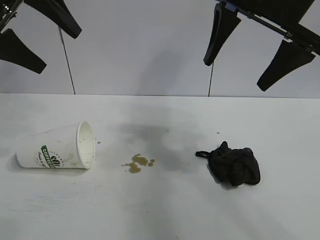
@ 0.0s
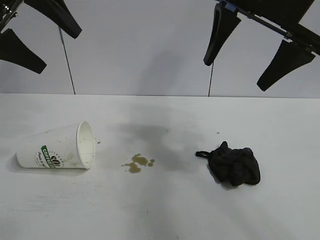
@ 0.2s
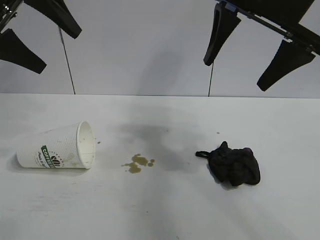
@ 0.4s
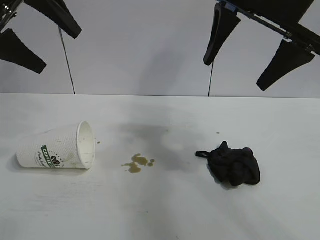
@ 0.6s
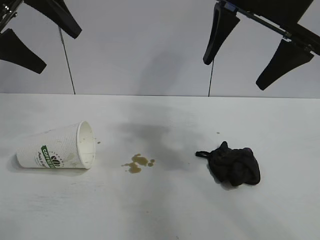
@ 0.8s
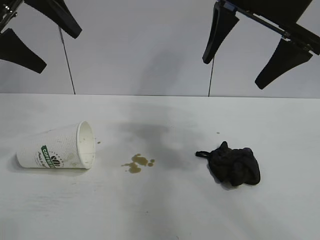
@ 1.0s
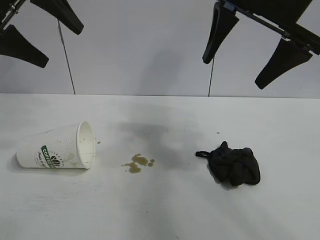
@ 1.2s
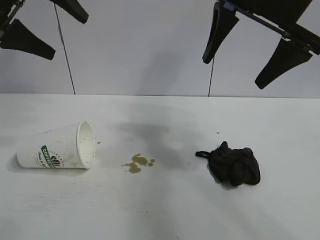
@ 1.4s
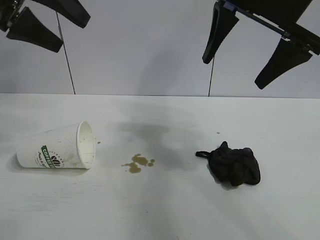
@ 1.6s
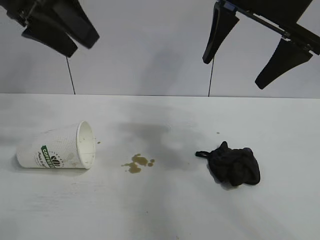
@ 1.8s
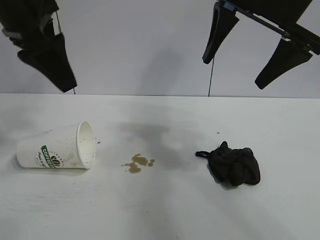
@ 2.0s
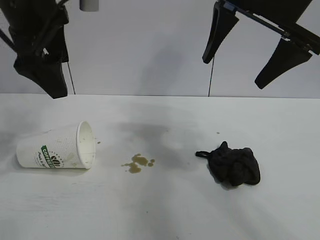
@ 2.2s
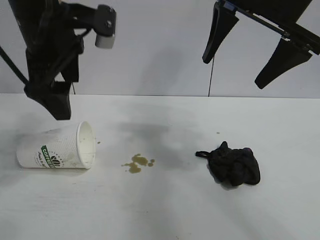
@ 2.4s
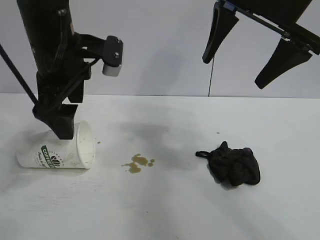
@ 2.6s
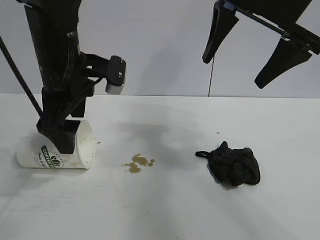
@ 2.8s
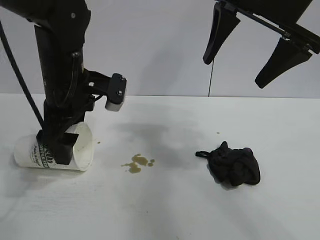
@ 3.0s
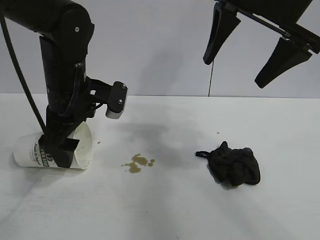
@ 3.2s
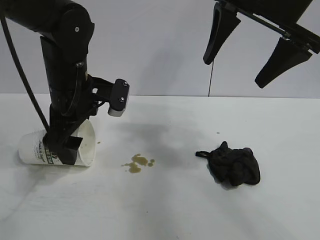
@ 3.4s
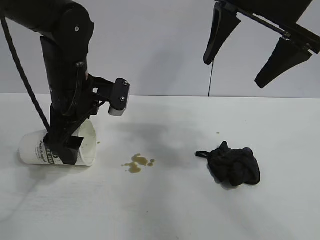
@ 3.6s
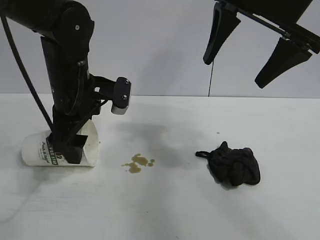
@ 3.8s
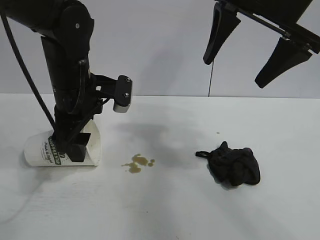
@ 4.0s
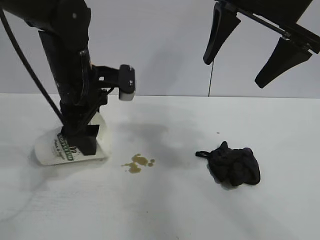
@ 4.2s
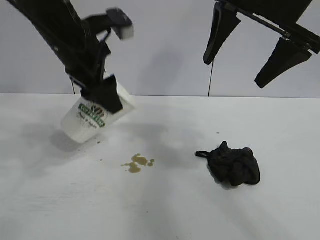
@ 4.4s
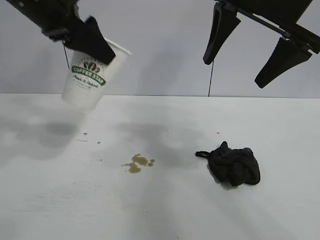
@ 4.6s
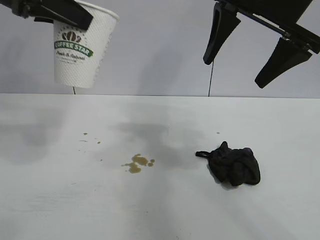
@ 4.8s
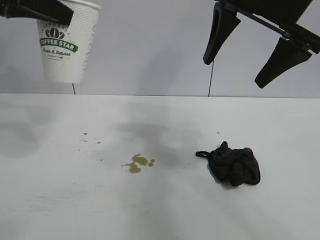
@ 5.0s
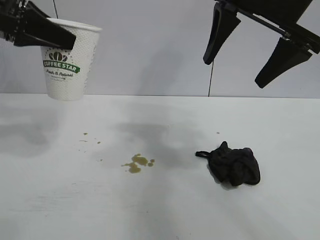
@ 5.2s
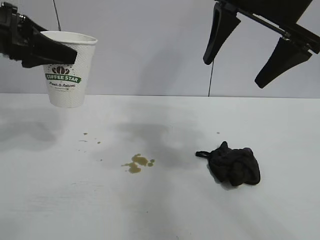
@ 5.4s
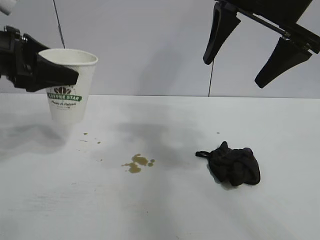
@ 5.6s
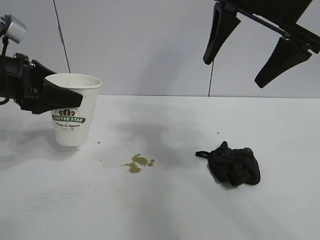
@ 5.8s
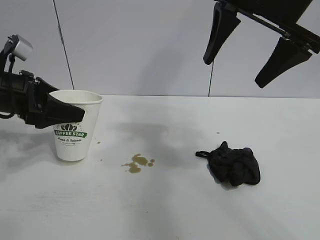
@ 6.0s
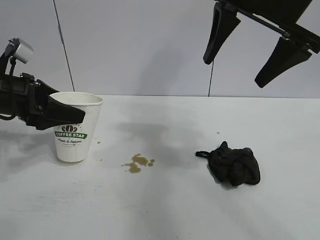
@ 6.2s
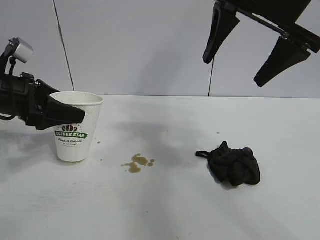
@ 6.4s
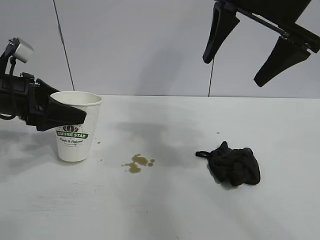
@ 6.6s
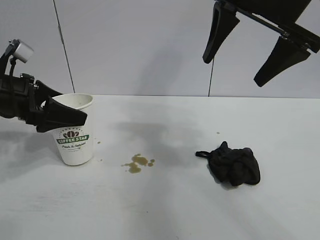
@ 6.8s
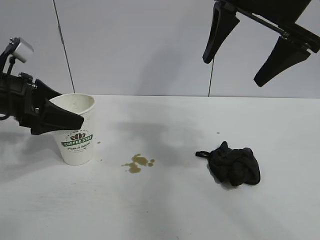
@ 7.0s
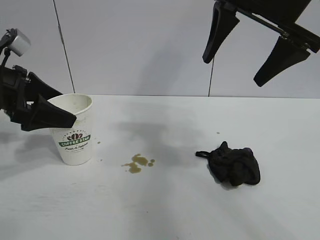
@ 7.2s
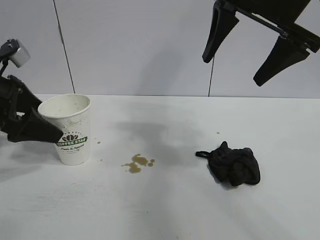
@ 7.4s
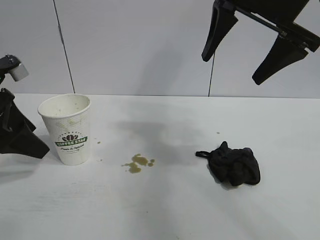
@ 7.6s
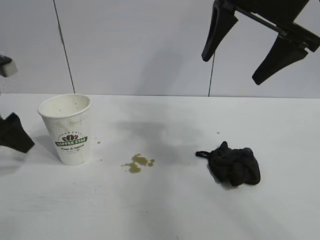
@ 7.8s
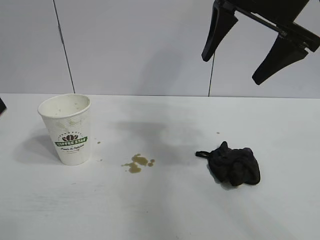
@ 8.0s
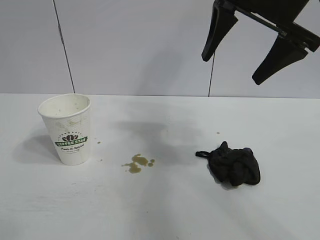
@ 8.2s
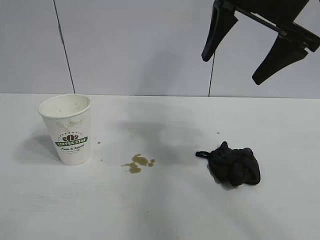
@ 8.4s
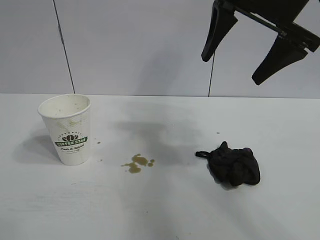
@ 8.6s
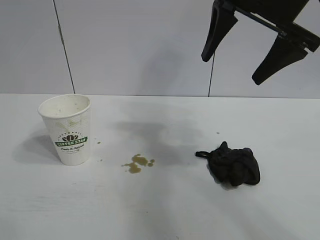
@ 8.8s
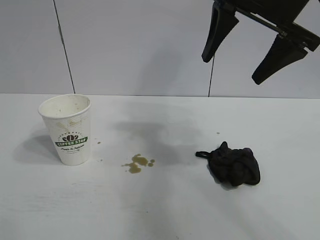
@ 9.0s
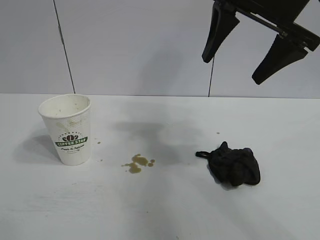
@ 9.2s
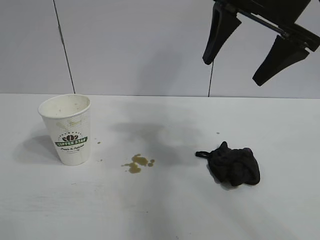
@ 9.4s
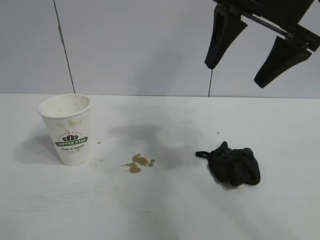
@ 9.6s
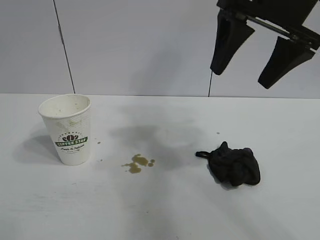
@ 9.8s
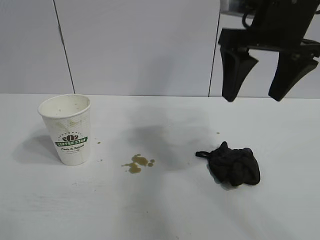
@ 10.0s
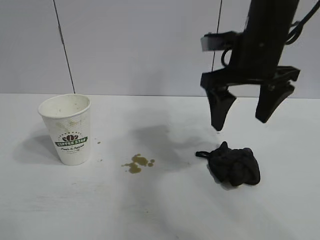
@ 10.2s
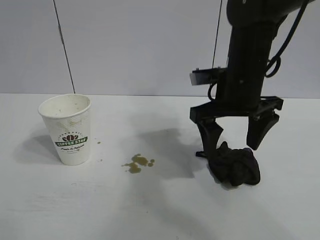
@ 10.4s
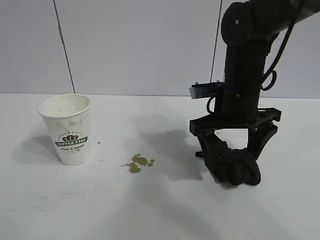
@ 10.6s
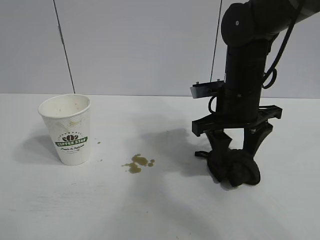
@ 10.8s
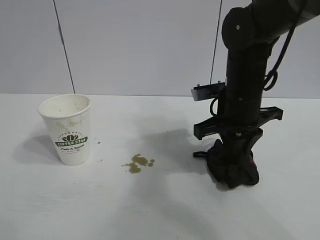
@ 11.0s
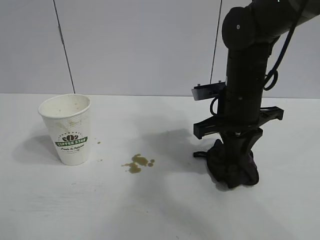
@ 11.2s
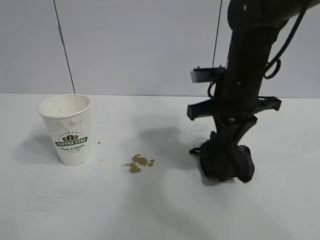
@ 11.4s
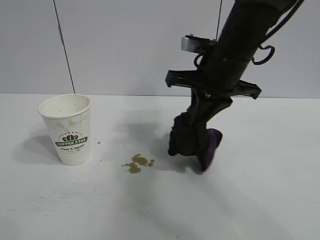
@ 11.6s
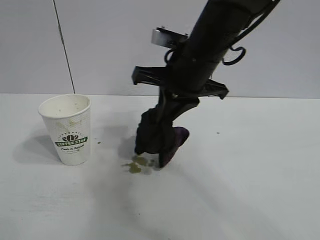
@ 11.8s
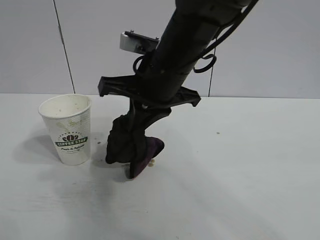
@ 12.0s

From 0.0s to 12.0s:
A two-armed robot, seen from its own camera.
Task of the whole recording: the left gripper pick up the fallen cup and place it upright, the right gripper grasp the black rag and wipe the stain on the table, the right gripper put the black rag back in its original position.
Step, from 0.8s to 3.4s: Grasp the paper cup with left gripper.
Step, from 3.6s to 6.8s: Stand the paper cup upright with left gripper.
Step, from 7.2s to 11.0s: Grasp the rag with right gripper.

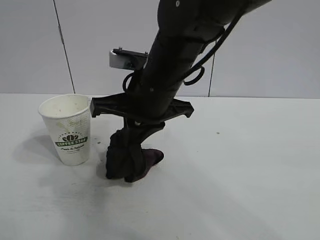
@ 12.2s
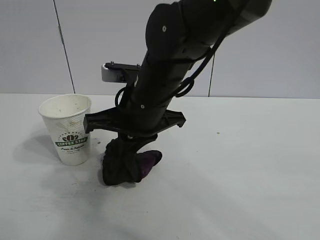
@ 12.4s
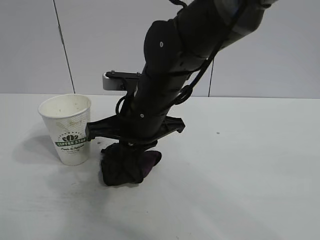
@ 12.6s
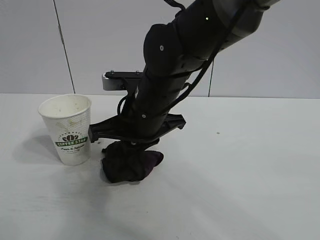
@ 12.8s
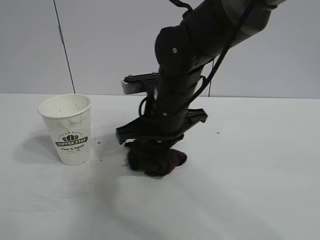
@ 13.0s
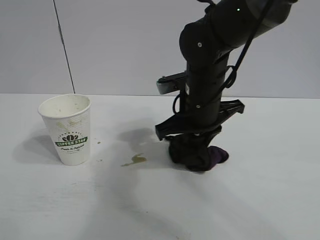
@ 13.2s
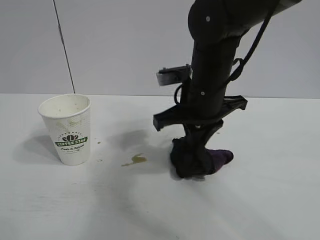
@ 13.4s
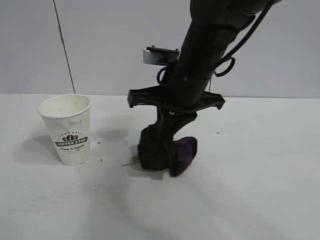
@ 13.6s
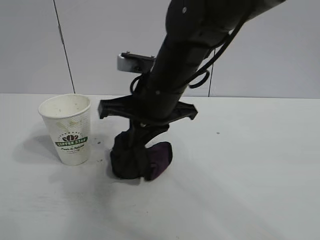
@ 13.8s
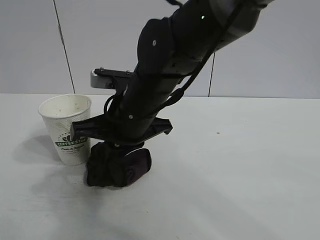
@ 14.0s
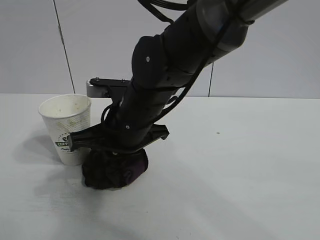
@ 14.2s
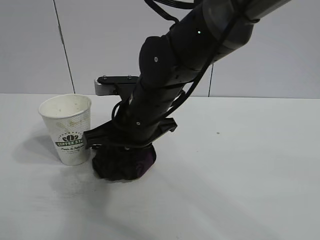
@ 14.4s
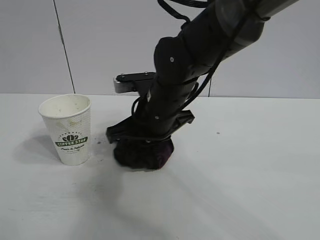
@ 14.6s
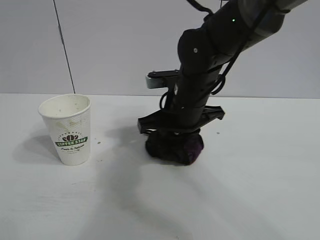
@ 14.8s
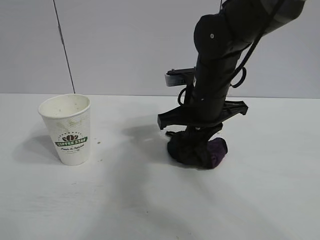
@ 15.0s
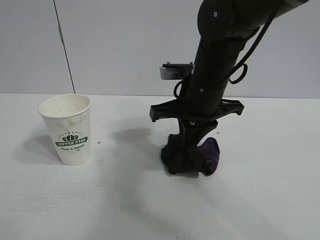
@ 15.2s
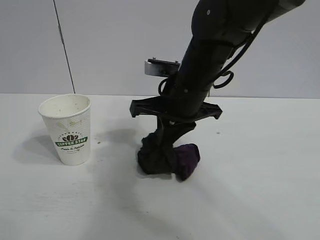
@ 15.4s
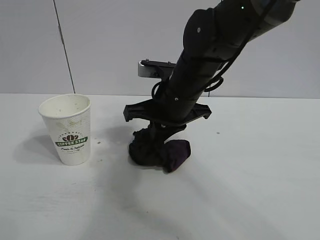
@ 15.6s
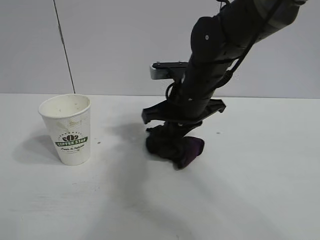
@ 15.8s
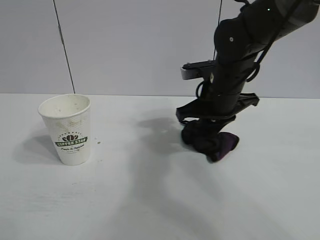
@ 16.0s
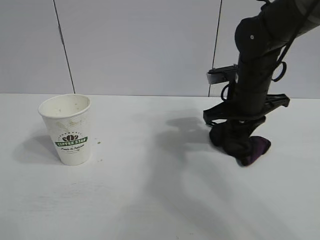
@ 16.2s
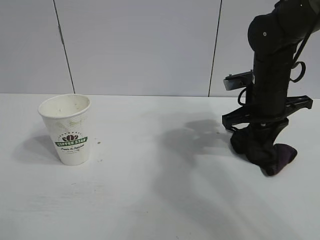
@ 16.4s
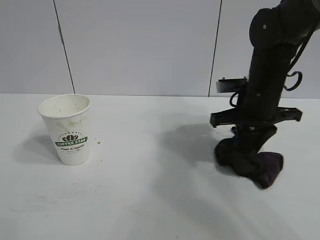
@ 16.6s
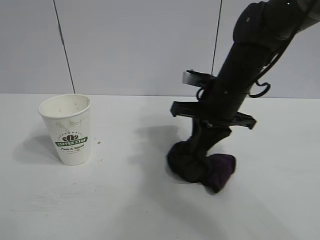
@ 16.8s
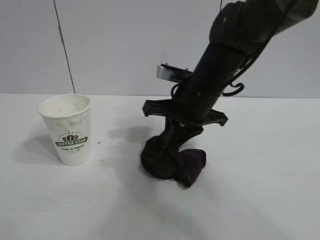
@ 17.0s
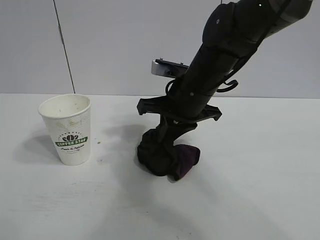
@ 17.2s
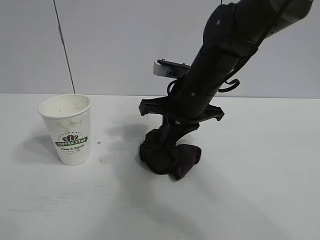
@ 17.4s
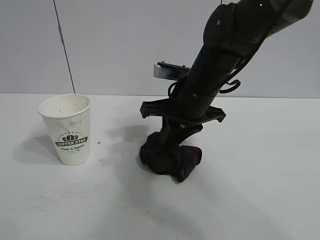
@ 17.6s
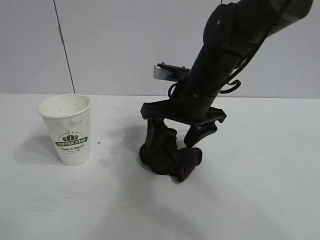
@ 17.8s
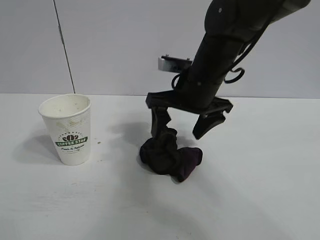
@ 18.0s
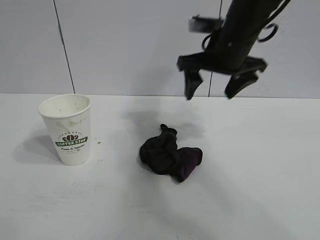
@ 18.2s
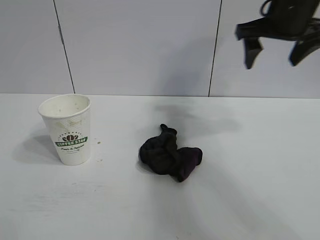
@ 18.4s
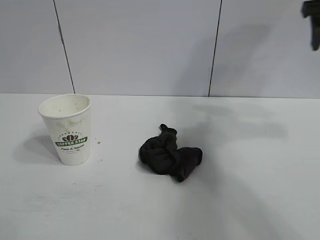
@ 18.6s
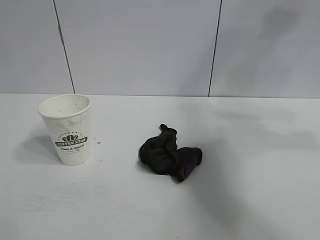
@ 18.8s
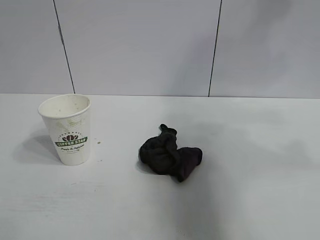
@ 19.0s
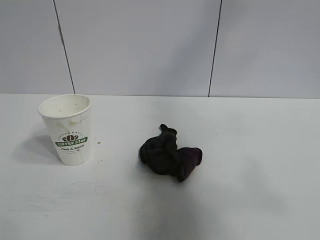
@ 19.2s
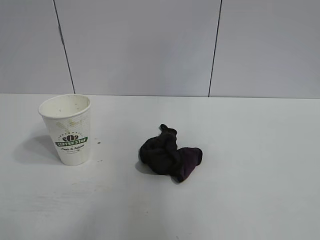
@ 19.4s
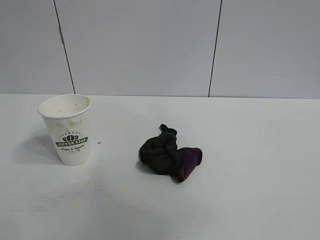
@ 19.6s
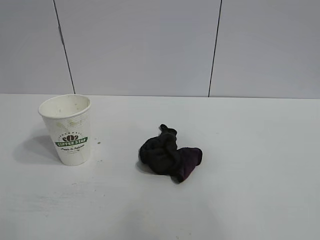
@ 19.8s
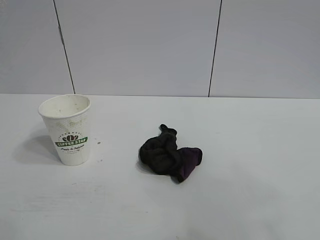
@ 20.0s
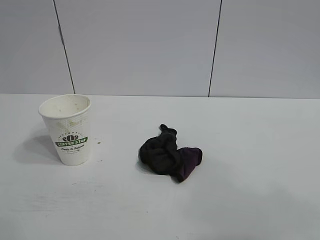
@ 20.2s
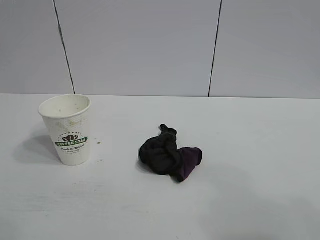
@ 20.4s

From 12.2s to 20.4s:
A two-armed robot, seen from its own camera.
Task of the whole recording: the left gripper pick up the fallen cup and place it upright, the right gripper grasp the black rag and wipe the stain on the table, the right gripper put the black rag back in its original position.
Step, from 12.2s to 17.0s: Wipe the stains off the table with the rag with right gripper.
Step, from 17.2s to 17.6s: Place the rag on the table with right gripper.

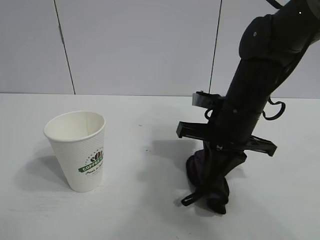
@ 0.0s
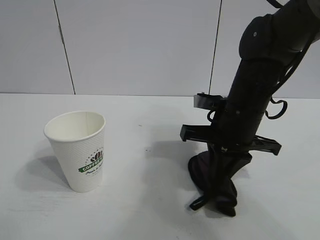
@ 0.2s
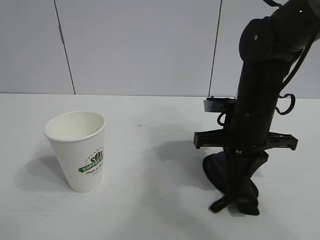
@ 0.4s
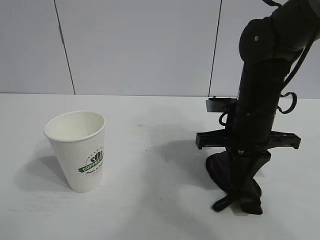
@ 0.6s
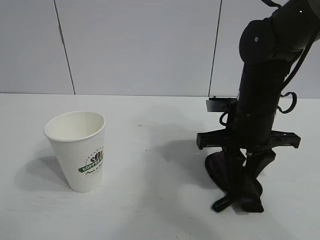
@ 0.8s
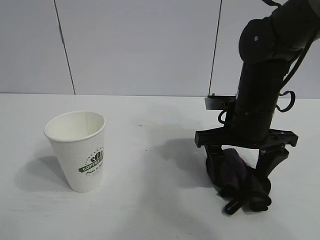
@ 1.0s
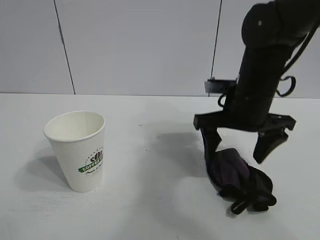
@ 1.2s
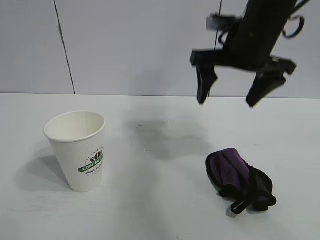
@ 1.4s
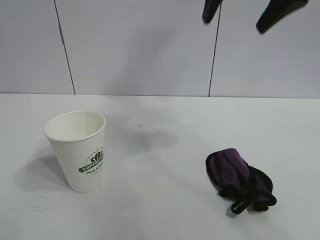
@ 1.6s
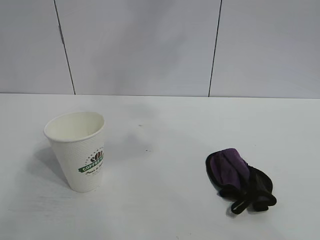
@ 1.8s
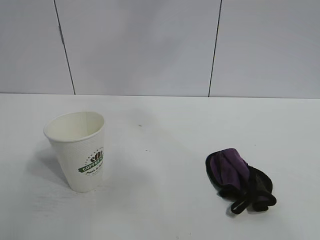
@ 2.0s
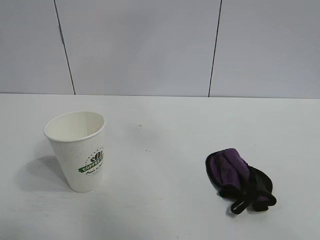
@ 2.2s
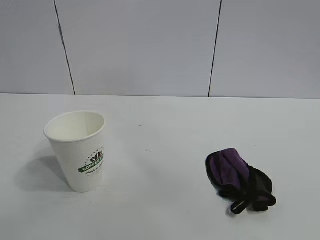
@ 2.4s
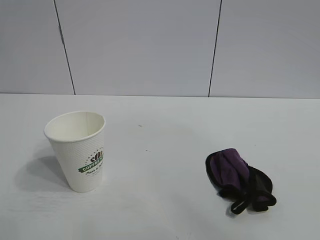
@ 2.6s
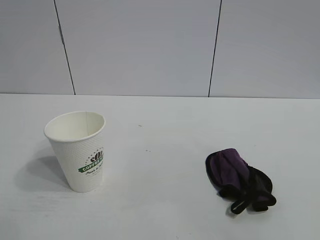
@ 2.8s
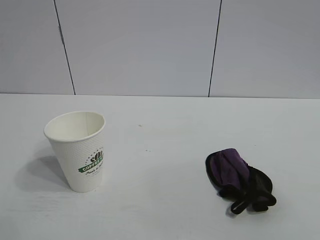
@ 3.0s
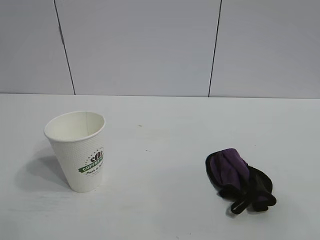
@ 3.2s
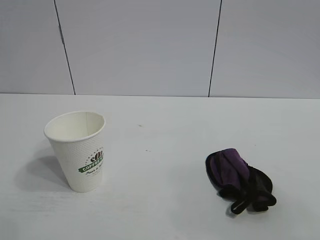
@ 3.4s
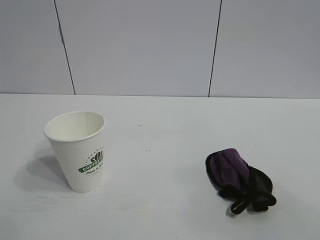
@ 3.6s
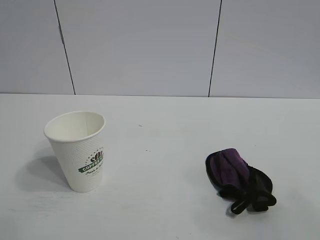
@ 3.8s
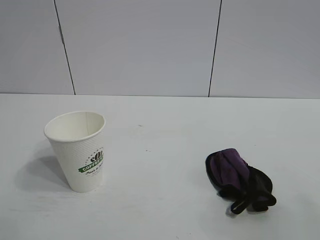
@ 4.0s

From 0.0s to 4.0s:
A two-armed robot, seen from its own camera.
Task of the whole recording: the left gripper pick up the fallen cup and place it upright, the right gripper grasp the black rag and wipe the stain on the table, the right gripper put the black rag back in its original position.
Step, from 0.6s to 1.0s: Place the rag on the table with right gripper.
